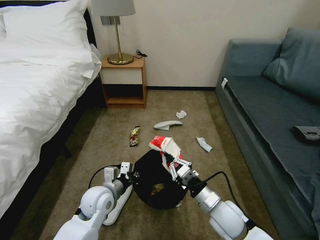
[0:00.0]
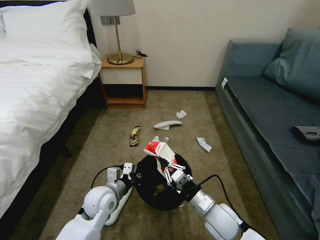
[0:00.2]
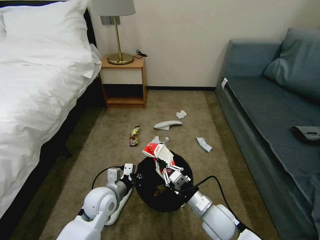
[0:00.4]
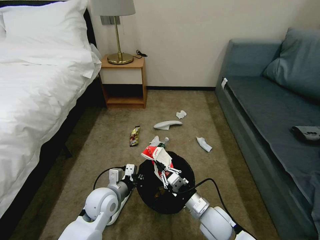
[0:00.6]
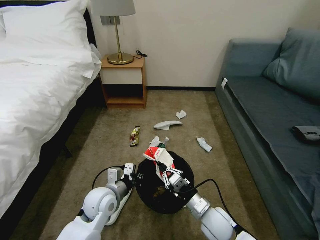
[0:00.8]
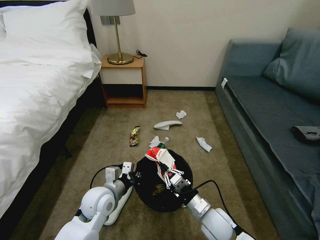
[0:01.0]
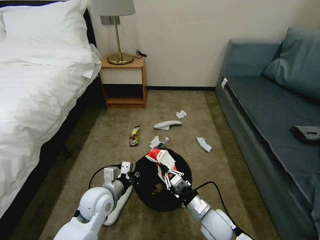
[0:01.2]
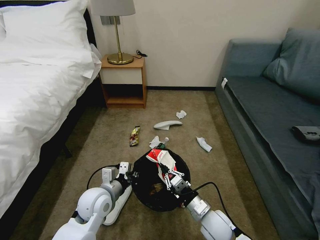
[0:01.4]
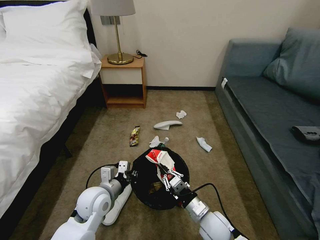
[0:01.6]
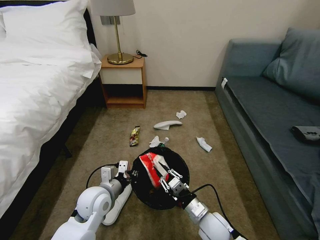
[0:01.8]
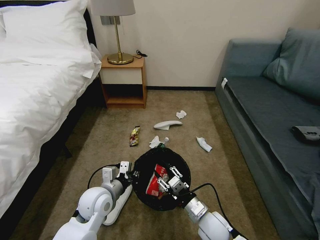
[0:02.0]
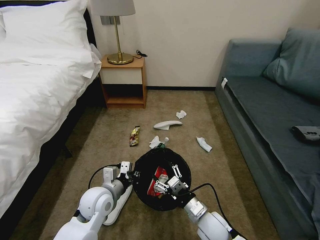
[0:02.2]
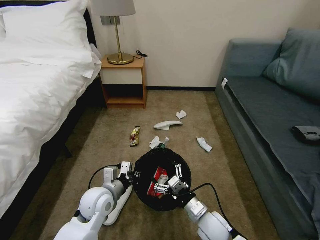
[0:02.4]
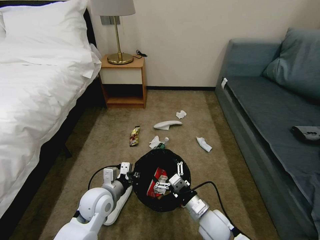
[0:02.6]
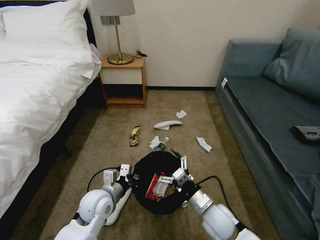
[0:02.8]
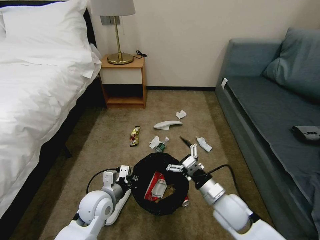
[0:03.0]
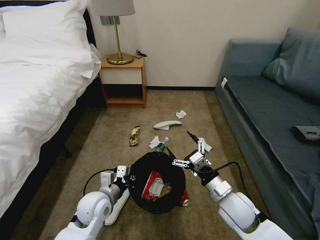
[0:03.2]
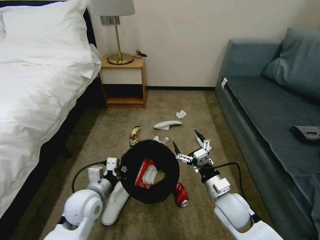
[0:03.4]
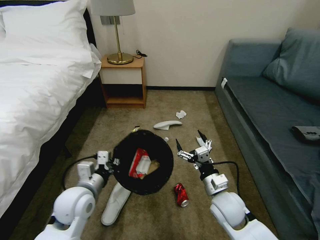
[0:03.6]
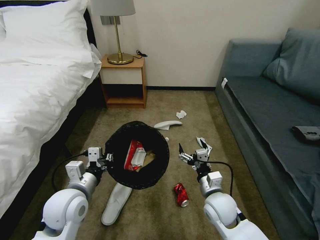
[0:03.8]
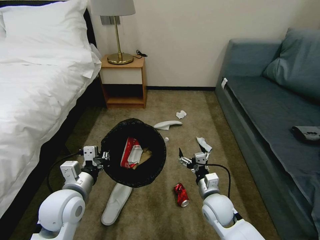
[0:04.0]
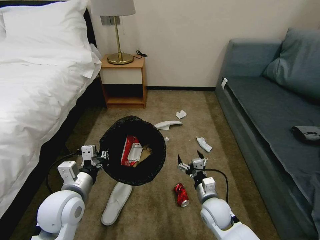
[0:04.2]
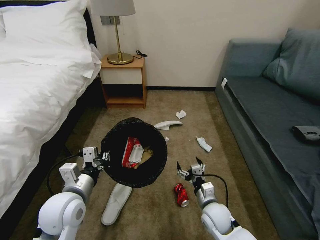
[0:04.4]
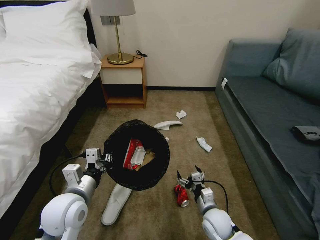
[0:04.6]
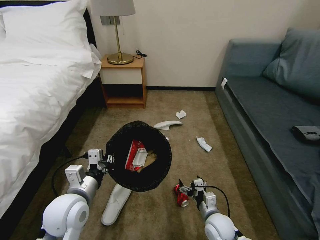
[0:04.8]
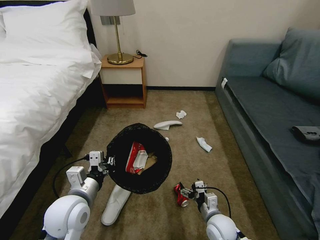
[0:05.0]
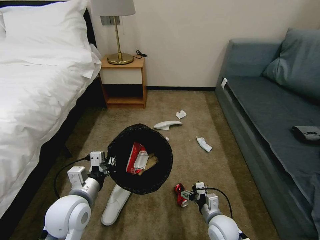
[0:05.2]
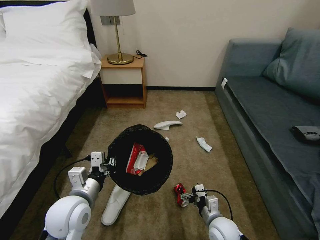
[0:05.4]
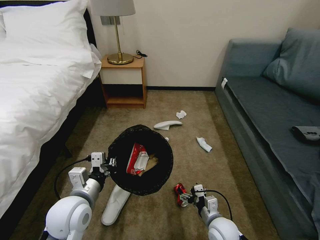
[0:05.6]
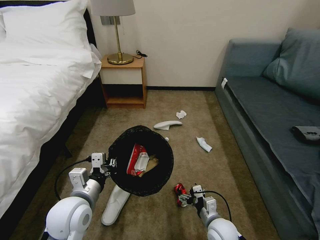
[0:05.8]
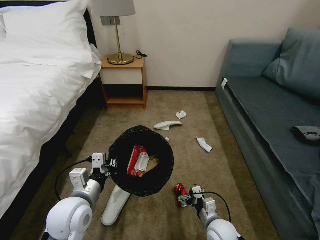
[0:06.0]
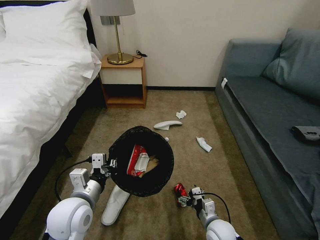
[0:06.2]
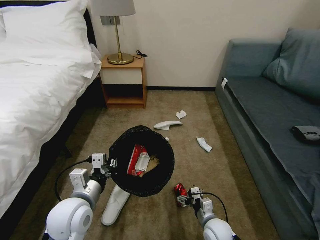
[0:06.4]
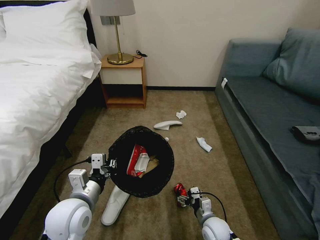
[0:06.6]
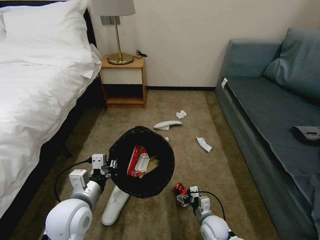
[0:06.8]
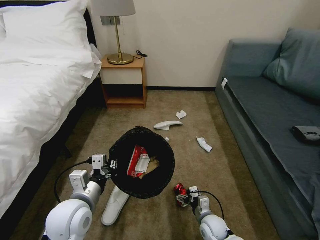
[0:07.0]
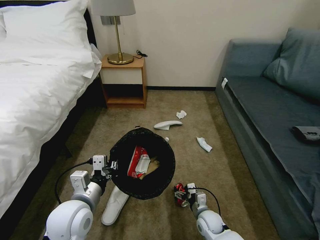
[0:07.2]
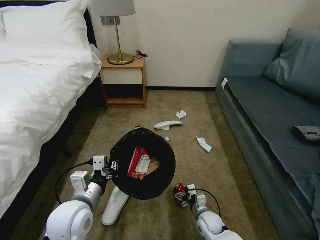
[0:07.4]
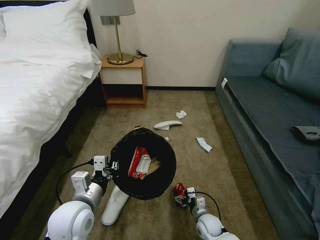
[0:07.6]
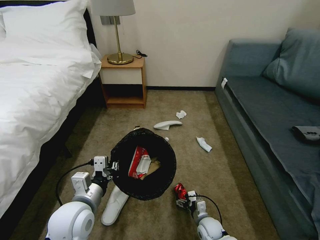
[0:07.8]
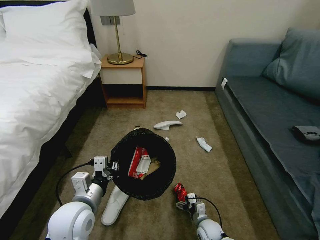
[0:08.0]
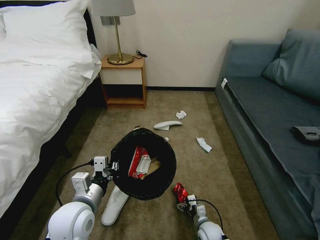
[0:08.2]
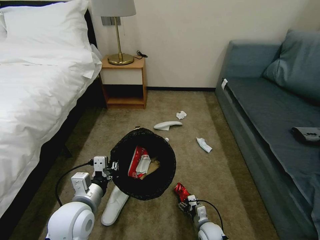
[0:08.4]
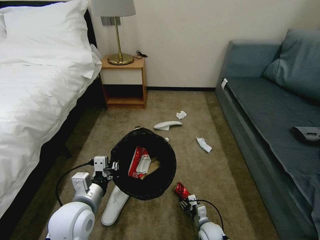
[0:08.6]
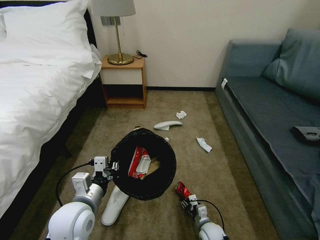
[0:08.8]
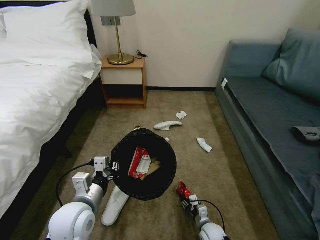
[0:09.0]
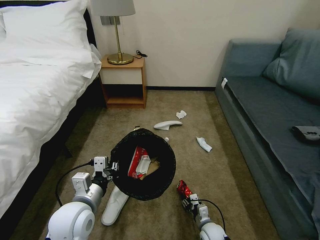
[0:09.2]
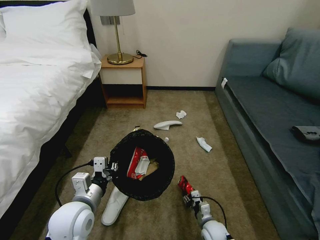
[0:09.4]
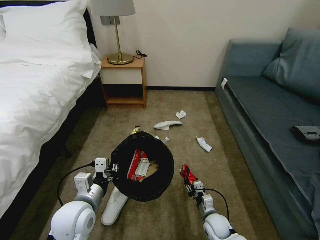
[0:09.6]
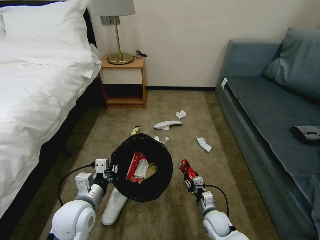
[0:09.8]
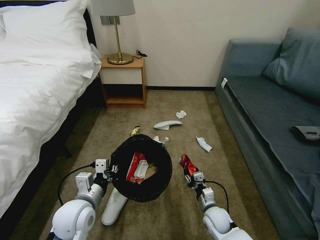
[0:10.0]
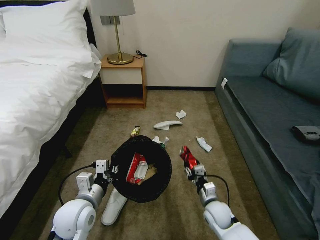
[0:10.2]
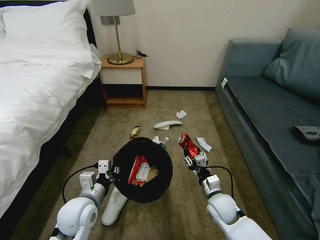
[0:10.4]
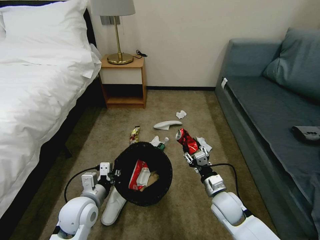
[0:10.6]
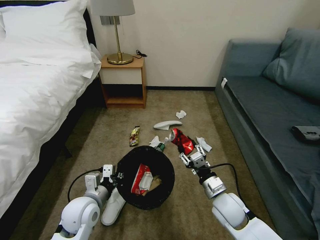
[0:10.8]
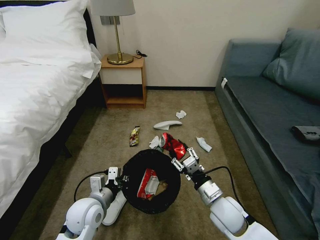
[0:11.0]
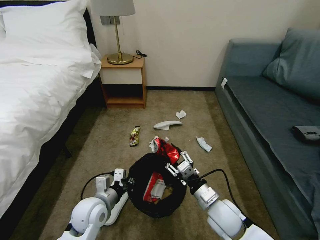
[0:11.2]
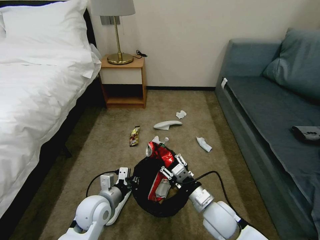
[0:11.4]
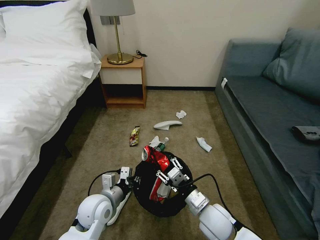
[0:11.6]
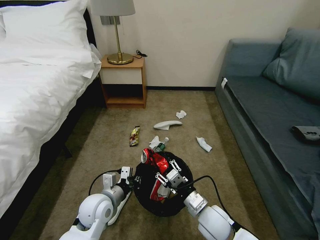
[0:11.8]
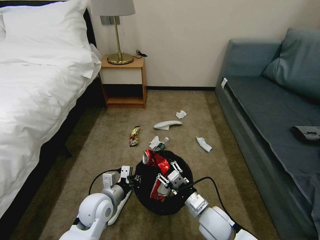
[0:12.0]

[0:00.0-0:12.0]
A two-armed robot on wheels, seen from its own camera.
Task of the whole recording: Pick up the trash bin, then pick up the garbage on the floor and place it into the trash bin.
0:00.0 to 0:01.6: The right gripper shifts roughly 5 cm downward.
0:01.6 to 0:03.0: The right gripper moves upward, roughly 10 cm, and opens its fingers.
0:03.0 to 0:04.4: The right gripper shifts approximately 10 cm downward. Meanwhile the left gripper moves upward, roughly 10 cm.
0:04.4 to 0:06.0: The right gripper changes place by roughly 5 cm.
0:06.0 to 0:07.6: The right gripper goes approximately 10 cm downward.
0:07.6 to 0:09.0: The right gripper shifts by about 5 cm, and closes its fingers.
0:09.0 to 0:10.4: The right gripper shifts roughly 20 cm upward.
0:10.4 to 0:12.0: The left gripper ends up approximately 5 cm from where it was; the right gripper shifts about 10 cm backward and to the left.

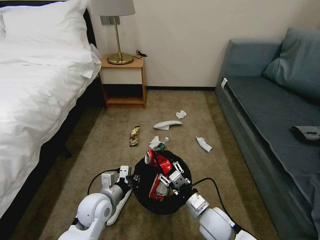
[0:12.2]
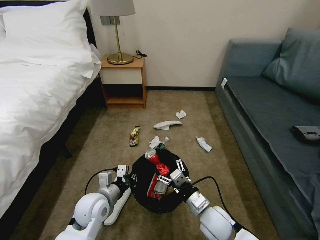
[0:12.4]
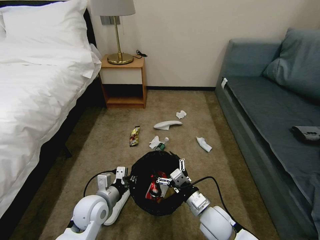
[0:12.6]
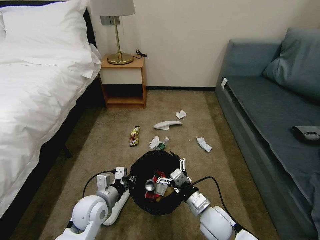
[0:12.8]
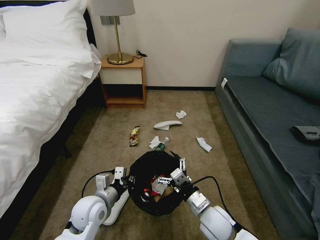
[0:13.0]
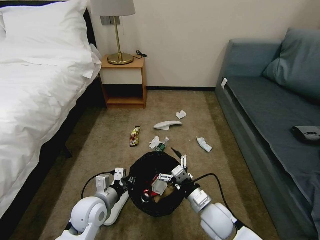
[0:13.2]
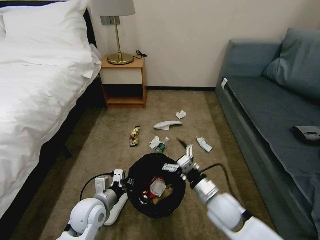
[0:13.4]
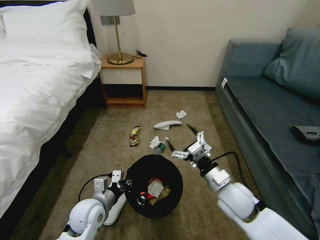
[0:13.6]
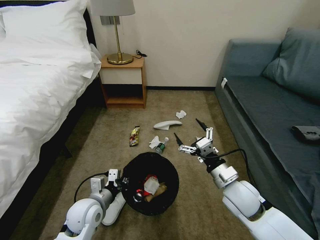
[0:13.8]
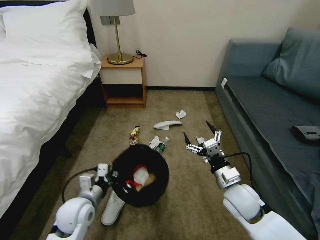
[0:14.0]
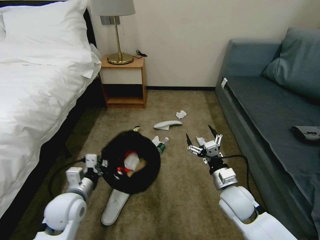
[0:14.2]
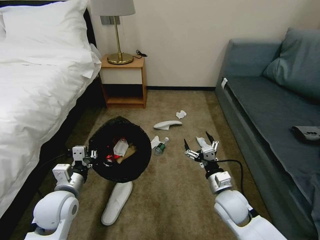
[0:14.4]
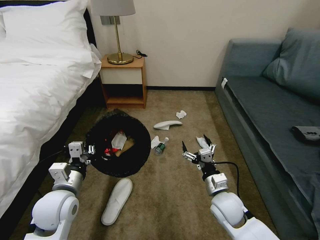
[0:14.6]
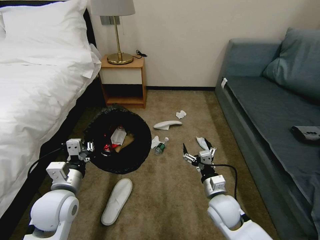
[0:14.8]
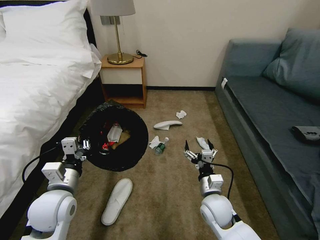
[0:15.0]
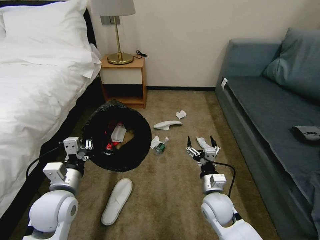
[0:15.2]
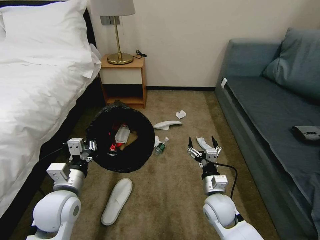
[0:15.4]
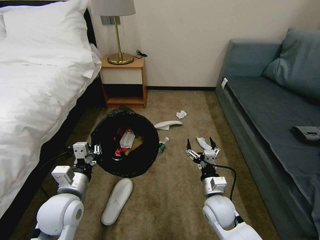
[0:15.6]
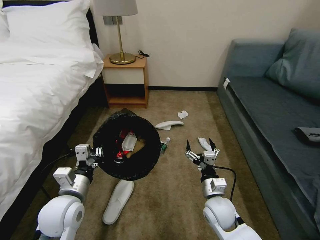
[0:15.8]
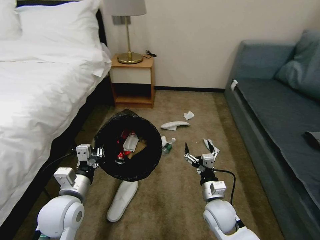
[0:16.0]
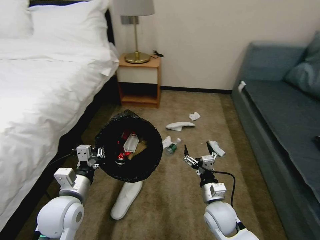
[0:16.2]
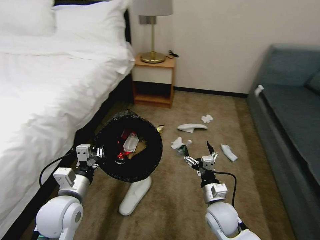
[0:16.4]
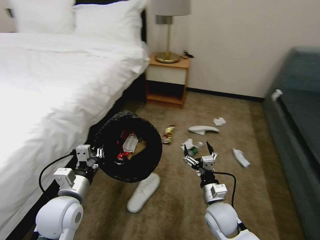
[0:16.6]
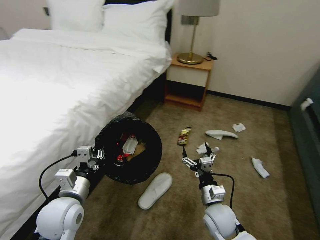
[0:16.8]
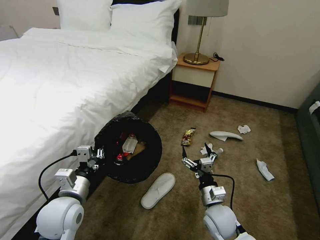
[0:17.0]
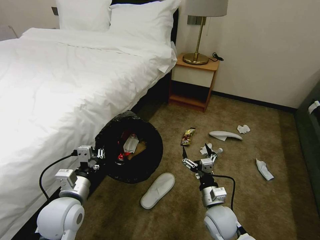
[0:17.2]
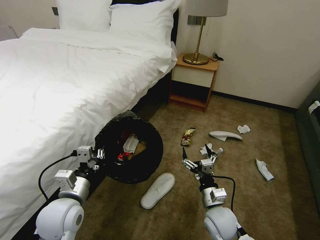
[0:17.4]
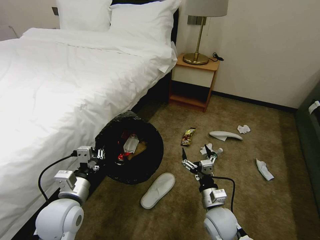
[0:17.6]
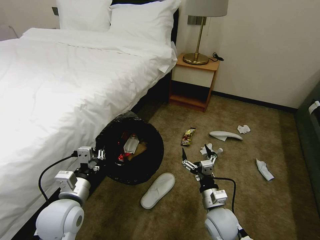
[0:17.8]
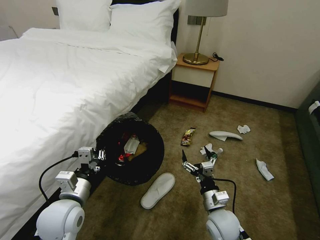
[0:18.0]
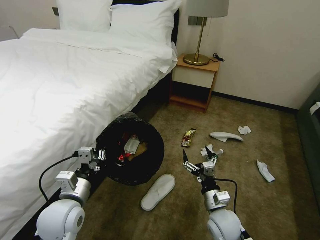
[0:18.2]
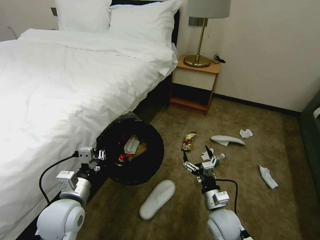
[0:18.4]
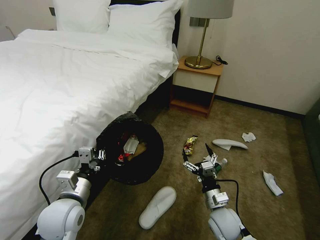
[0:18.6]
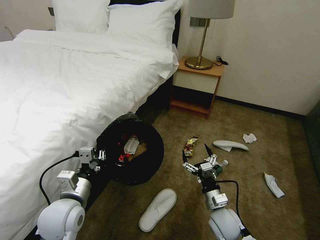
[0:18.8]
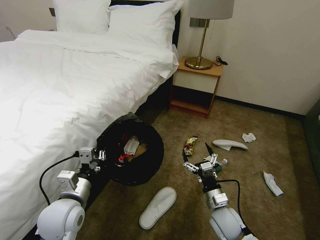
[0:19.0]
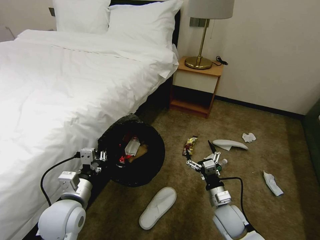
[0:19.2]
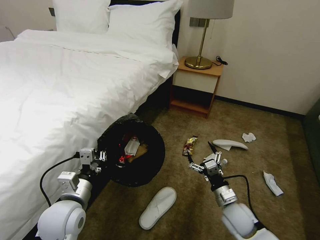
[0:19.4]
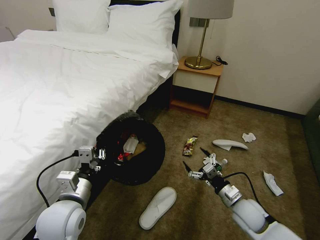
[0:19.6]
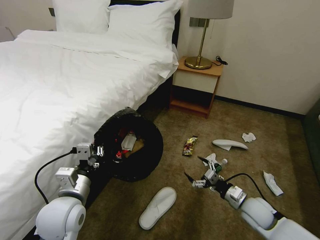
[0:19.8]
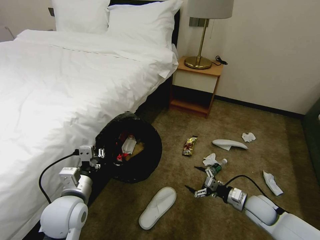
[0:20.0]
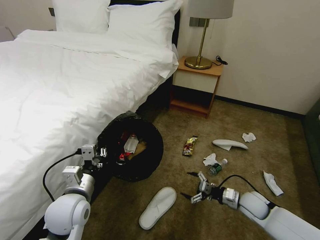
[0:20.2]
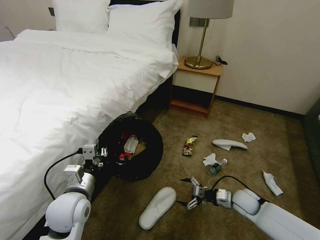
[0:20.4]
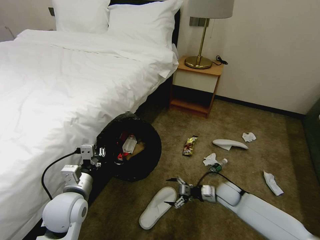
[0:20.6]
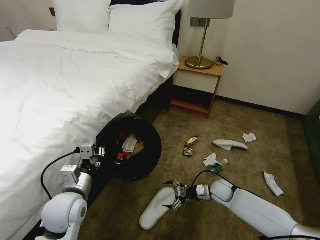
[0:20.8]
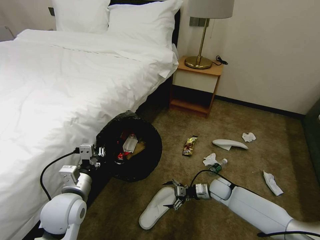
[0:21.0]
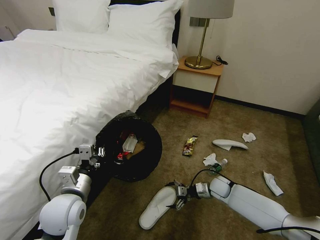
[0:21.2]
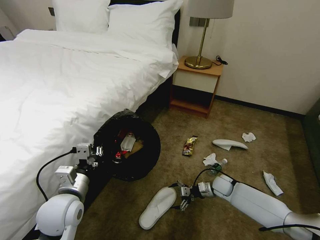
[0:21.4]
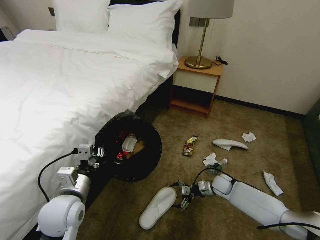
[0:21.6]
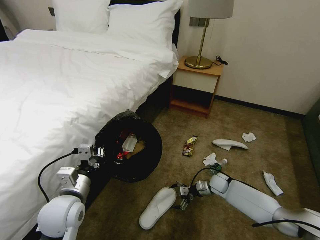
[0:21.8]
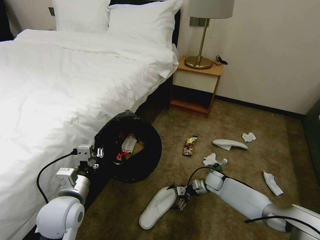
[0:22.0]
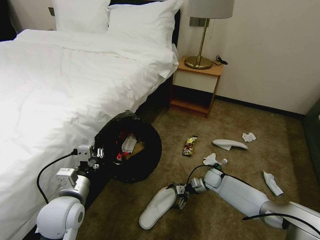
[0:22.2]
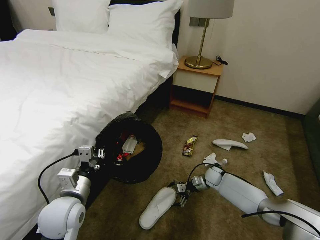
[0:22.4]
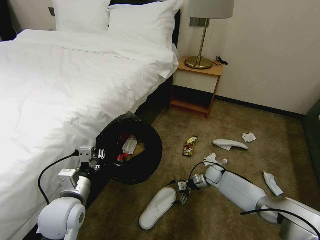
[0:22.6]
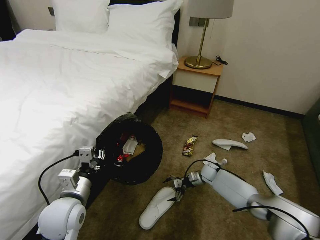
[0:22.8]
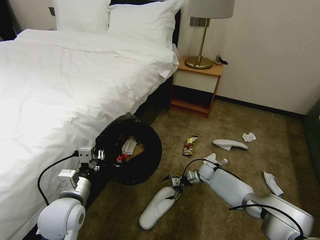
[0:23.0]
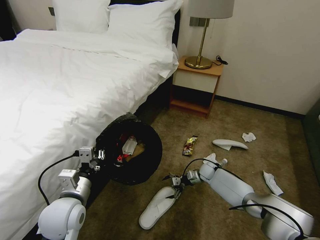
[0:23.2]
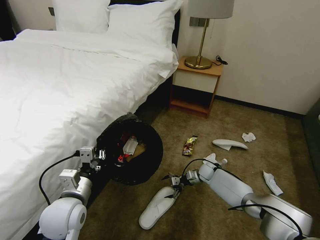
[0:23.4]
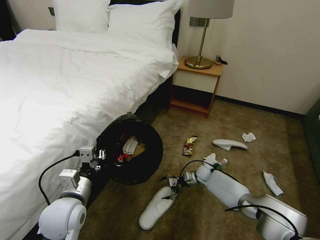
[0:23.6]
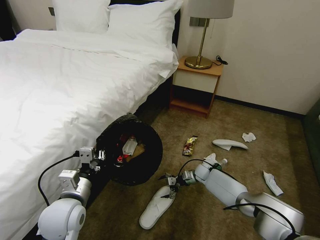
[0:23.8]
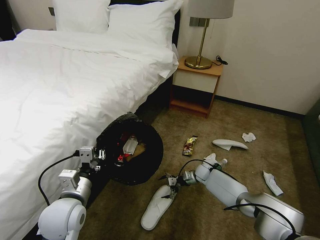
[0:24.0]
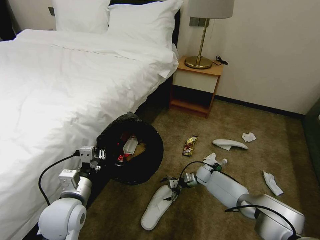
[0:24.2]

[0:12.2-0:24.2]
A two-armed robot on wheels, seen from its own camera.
Task of the whole recording: Pick up the trash bin, then pick up the garbage on the floor and place it into the trash bin.
0:12.2 to 0:13.8: The right gripper goes about 10 cm upward and to the right, and opens.
0:13.8 to 0:15.2: The left gripper heads upward, covering approximately 10 cm. Meanwhile the right gripper travels downward by some 10 cm.
0:18.2 to 0:19.8: The right gripper shifts roughly 15 cm to the right.
0:19.8 to 0:21.2: The right gripper heads forward, downward and to the left, covering roughly 15 cm.
0:21.2 to 0:22.6: The right gripper is displaced forward by approximately 5 cm.
0:22.6 to 0:24.2: The grippers stay close to where they were, moving slightly.
